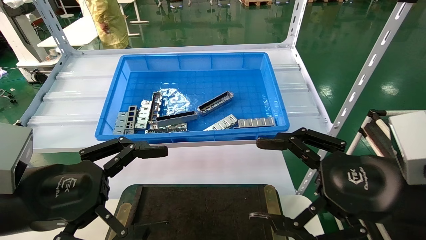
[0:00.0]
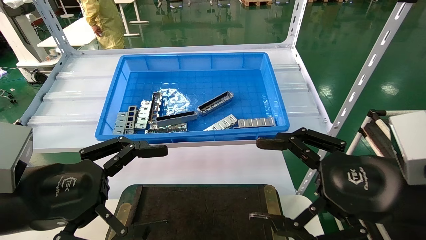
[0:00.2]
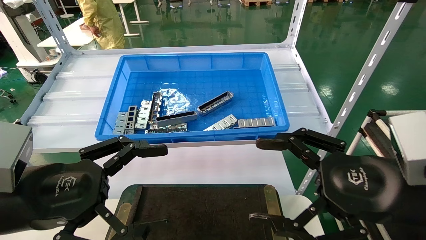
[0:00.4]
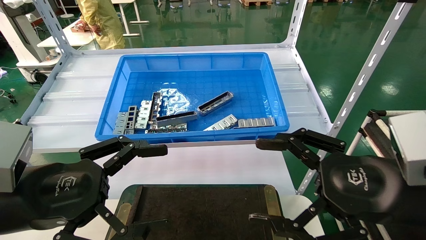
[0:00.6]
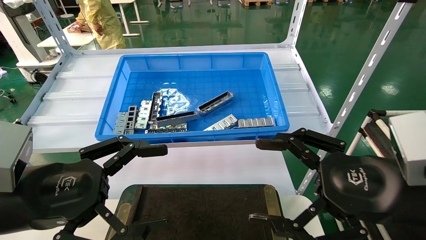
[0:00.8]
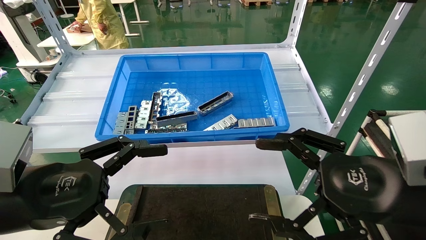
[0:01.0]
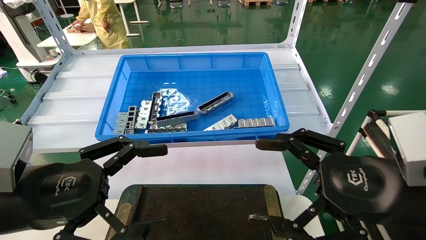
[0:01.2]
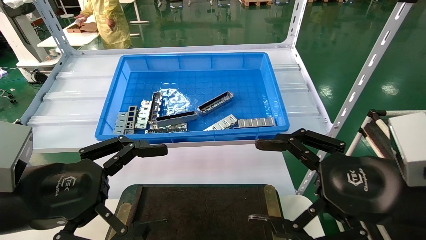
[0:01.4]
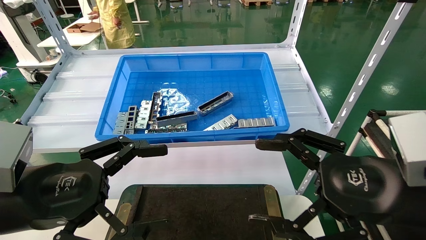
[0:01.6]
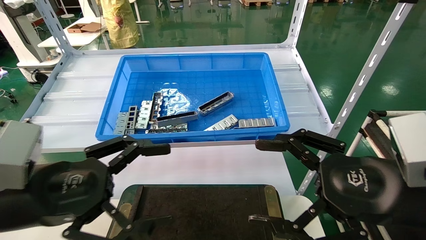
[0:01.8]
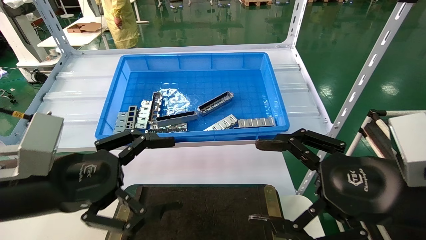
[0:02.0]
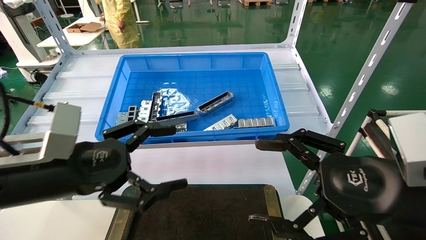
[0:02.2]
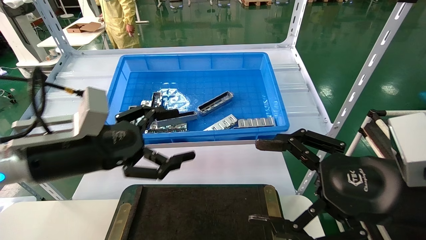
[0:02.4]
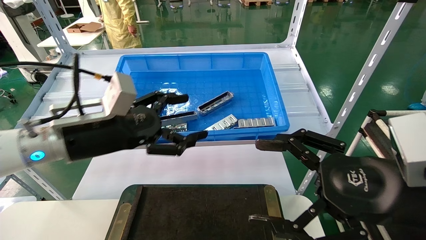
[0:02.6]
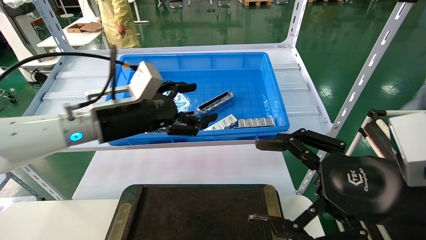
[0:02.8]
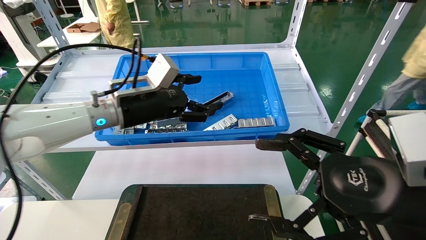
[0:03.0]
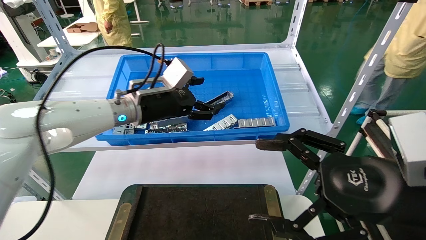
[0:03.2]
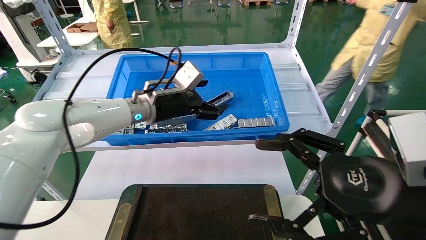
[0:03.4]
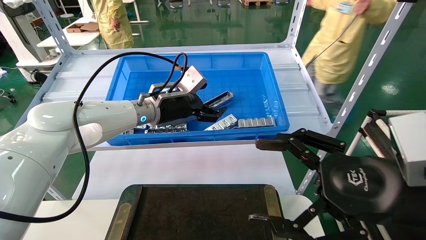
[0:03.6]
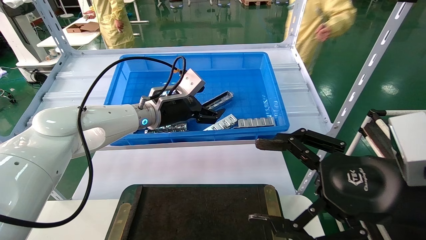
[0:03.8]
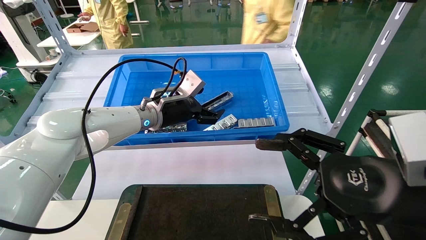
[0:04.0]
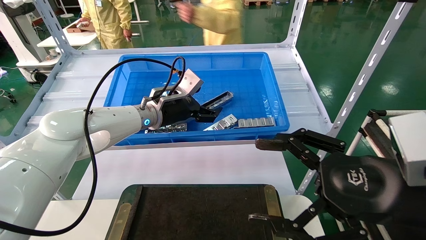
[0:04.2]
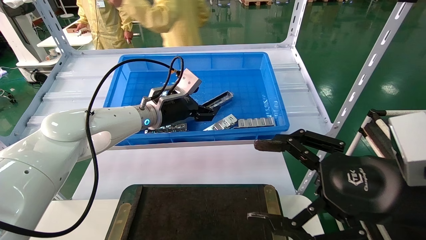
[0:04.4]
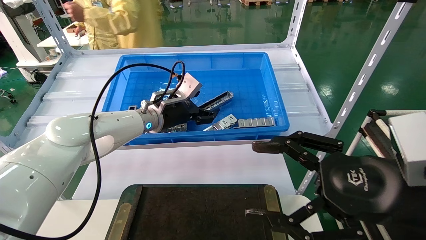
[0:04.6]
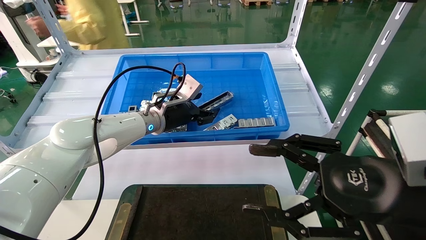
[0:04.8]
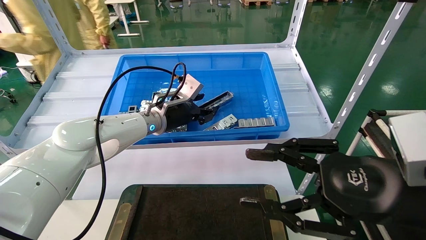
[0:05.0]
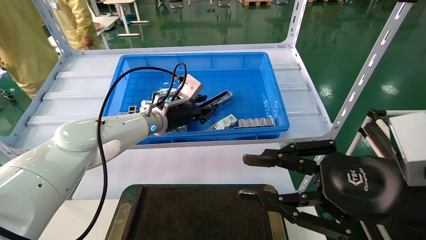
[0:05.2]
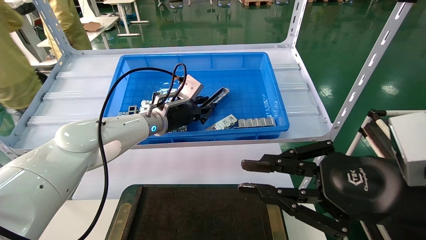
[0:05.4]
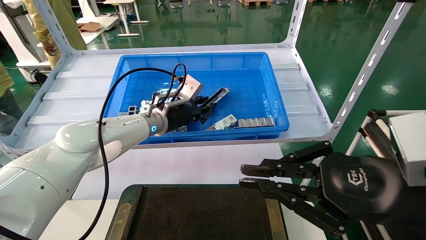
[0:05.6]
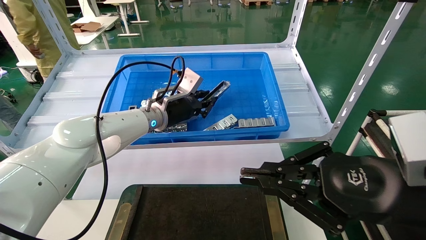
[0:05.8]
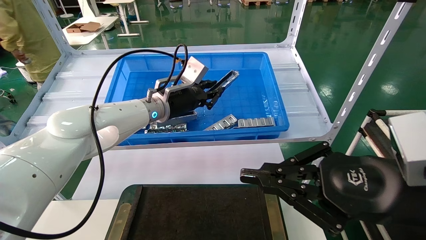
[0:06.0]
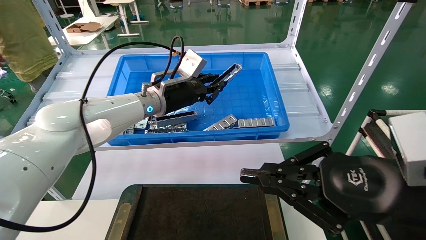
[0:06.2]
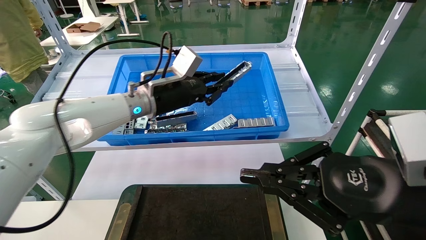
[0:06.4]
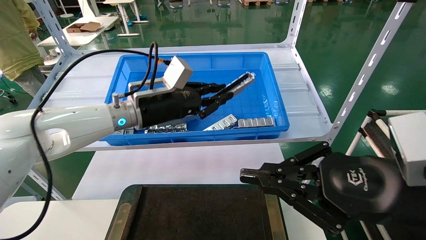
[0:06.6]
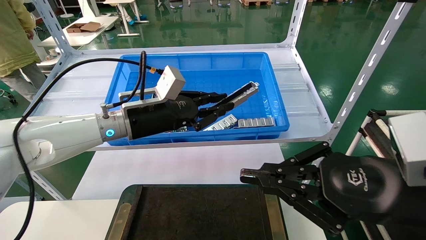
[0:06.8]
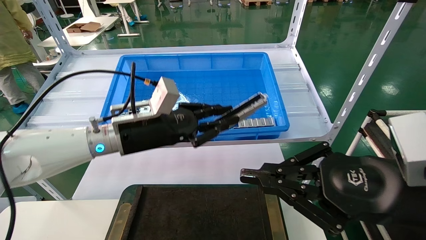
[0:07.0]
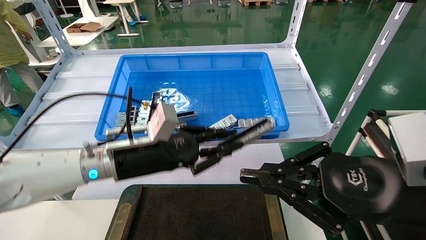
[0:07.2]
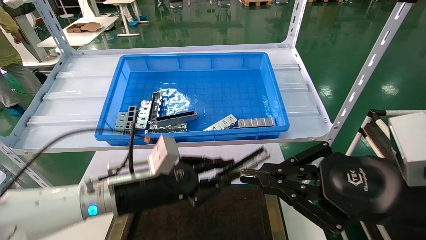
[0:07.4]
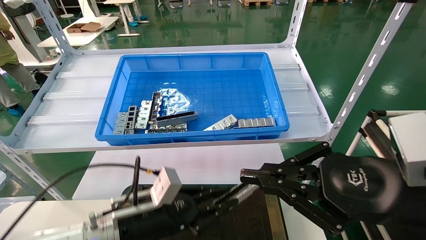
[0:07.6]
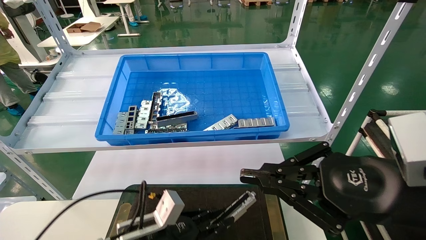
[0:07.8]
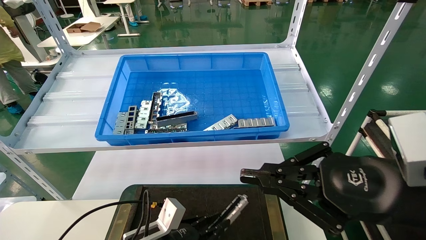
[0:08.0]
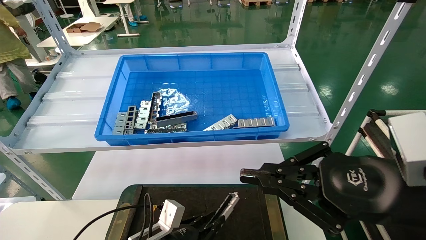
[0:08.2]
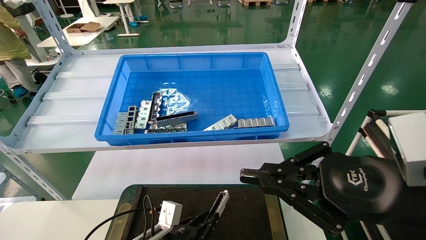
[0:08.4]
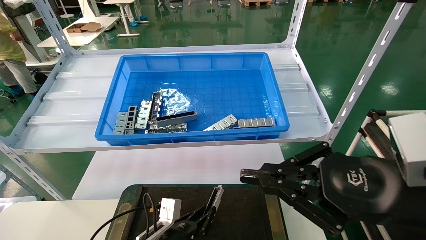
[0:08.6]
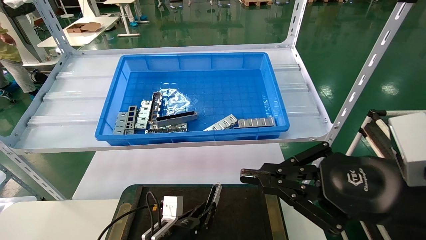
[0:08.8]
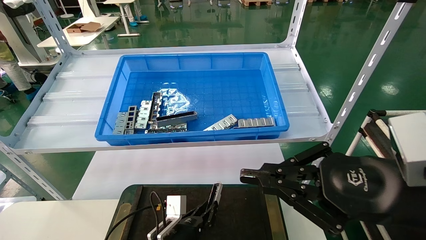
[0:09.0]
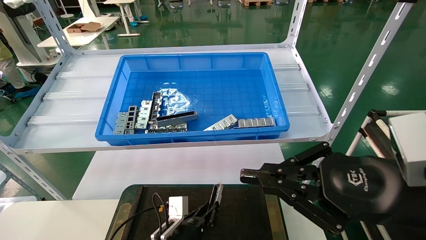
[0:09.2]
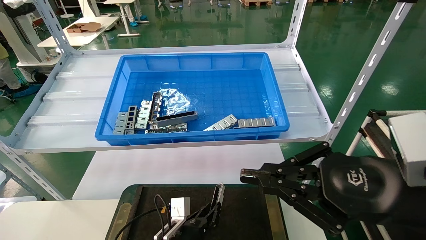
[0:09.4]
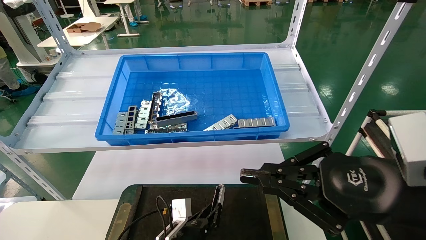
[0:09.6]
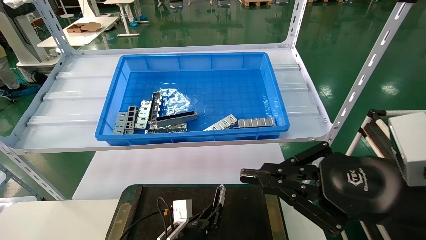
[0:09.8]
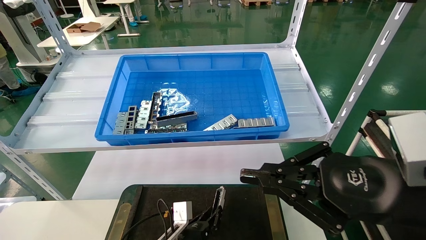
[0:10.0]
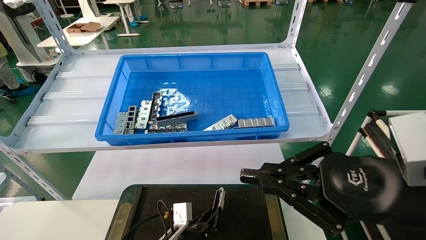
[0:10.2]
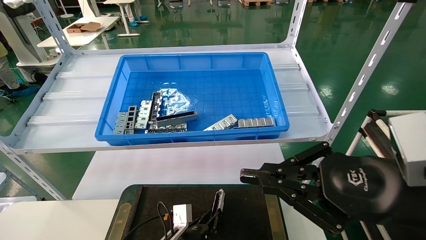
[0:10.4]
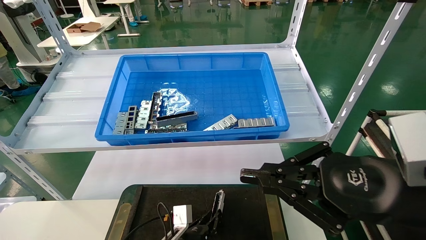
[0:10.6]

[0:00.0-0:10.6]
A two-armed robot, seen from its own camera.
Task of the whole recording: Grasp the part with one hand and place it on the black container.
Step, 0:02.0 to 0:05.4: Pick up the front USB bracket from the feeding area.
0:00.0 to 0:01.6: The two grippers keep their place.
0:01.6 to 0:03.0: The left gripper goes roughly 25 cm forward and to the right.
0:03.0 to 0:04.6: The left gripper is displaced forward by some 10 cm.
0:04.6 to 0:06.0: The right gripper closes its fingers; the left gripper closes its fingers.
0:06.0 to 0:07.6: The left gripper moves downward and backward, approximately 25 cm.
0:07.6 to 0:09.0: The left gripper travels downward by approximately 15 cm.
0:09.0 to 0:10.6: The grippers move only a little.

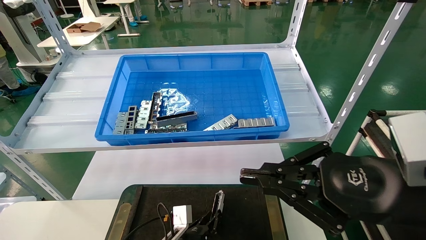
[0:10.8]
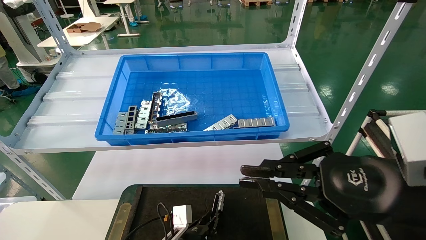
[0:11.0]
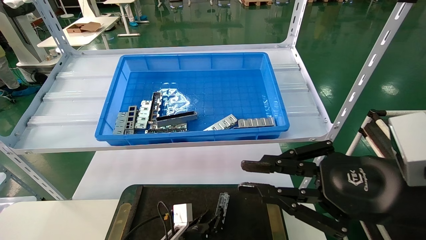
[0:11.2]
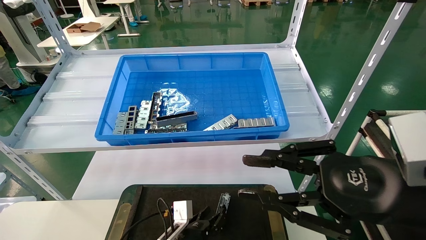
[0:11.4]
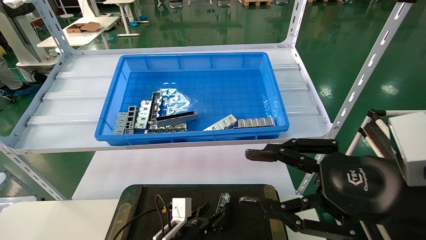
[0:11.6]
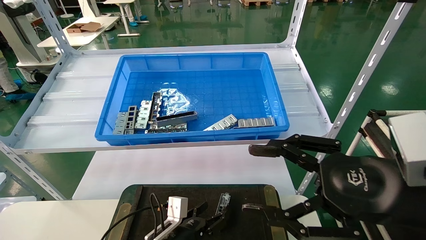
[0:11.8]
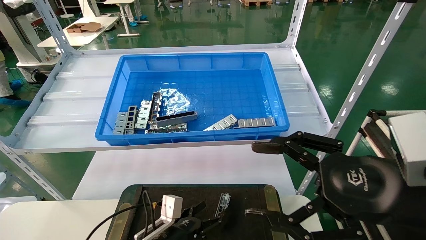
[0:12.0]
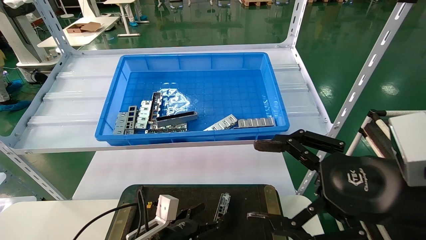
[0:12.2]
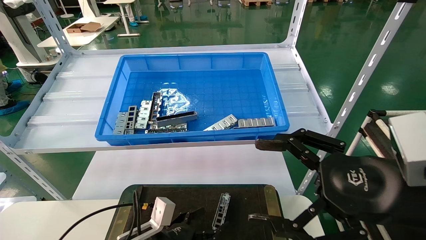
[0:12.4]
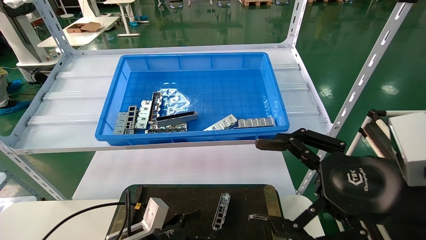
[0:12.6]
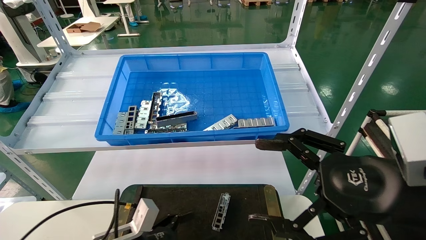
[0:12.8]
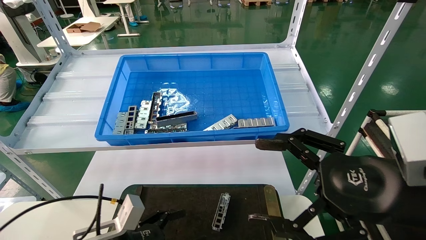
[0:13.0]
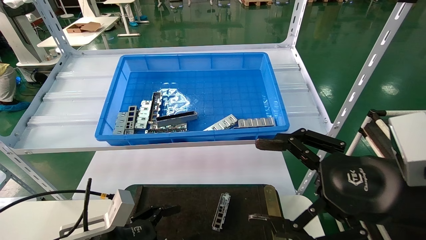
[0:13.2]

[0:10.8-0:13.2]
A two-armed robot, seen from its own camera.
Task of the whole recording: Grasp the part with one hand and place it on the black container.
0:10.8 to 0:12.0: The right gripper opens, while the left gripper moves upward, some 5 cm, and opens its fingers.
0:12.0 to 0:13.2: The left gripper is displaced to the left, upward and backward by about 15 cm.
